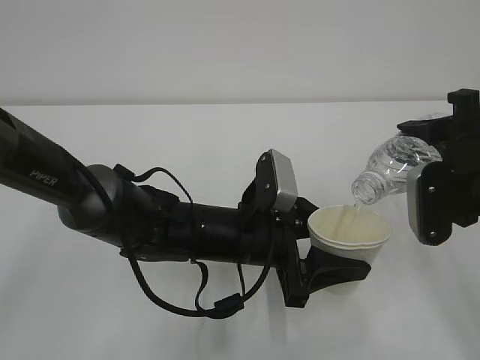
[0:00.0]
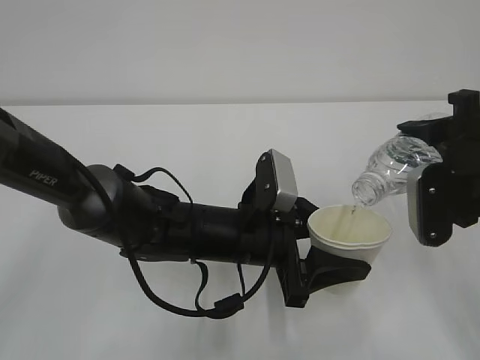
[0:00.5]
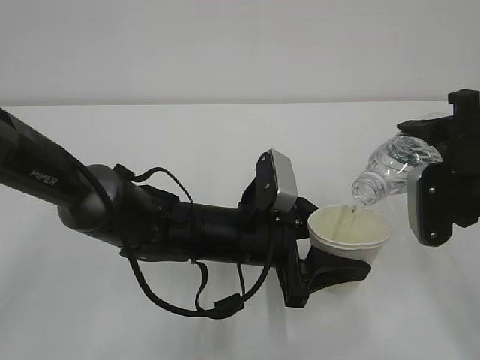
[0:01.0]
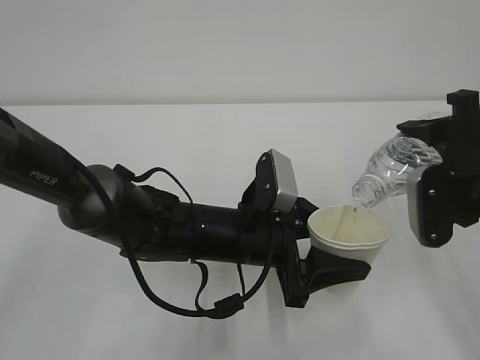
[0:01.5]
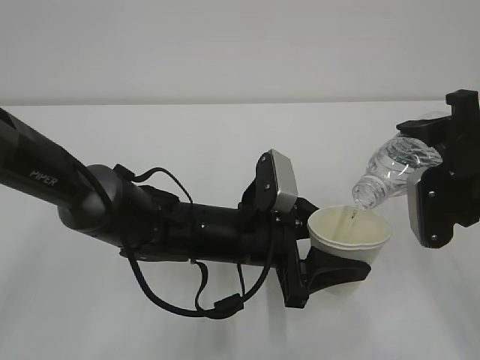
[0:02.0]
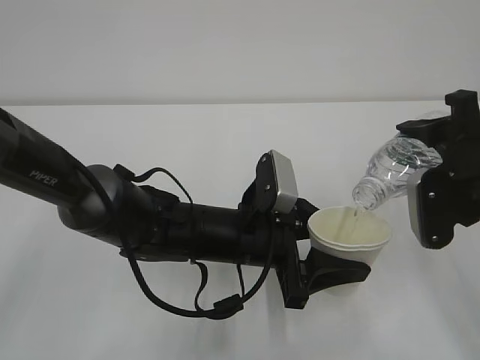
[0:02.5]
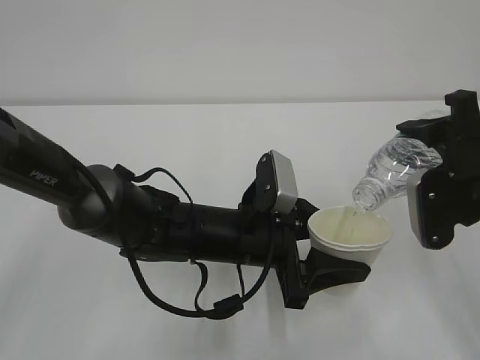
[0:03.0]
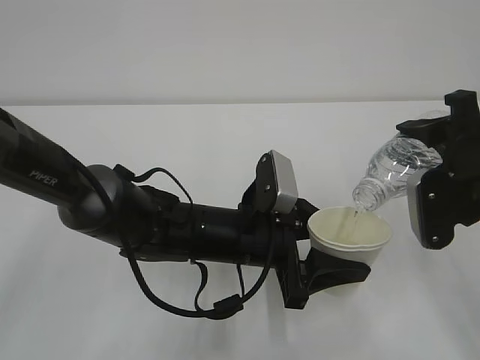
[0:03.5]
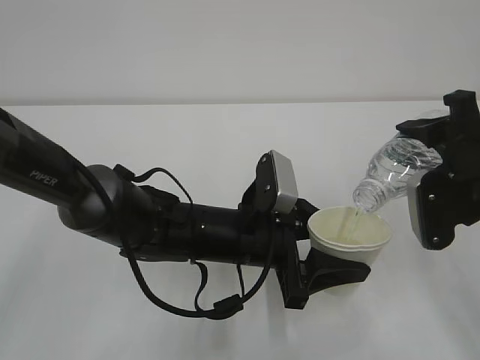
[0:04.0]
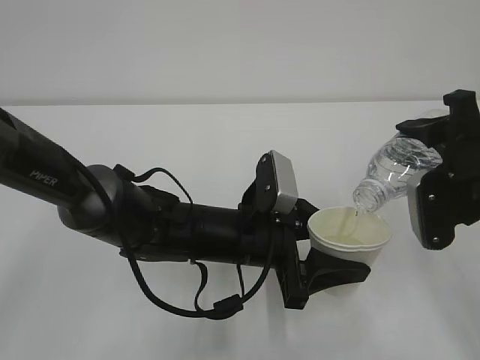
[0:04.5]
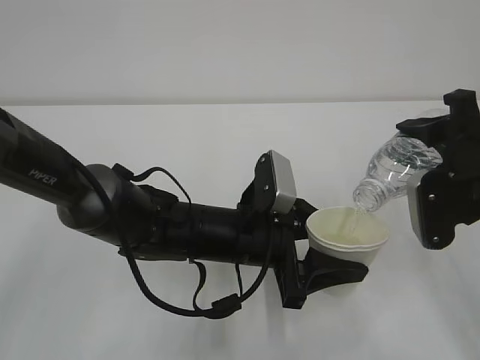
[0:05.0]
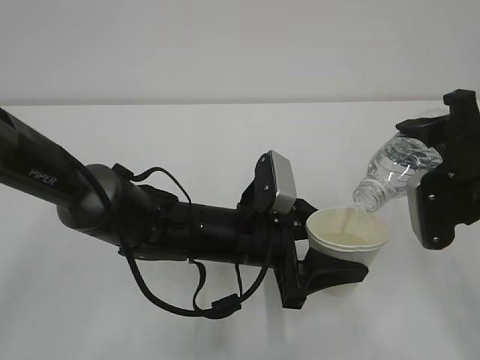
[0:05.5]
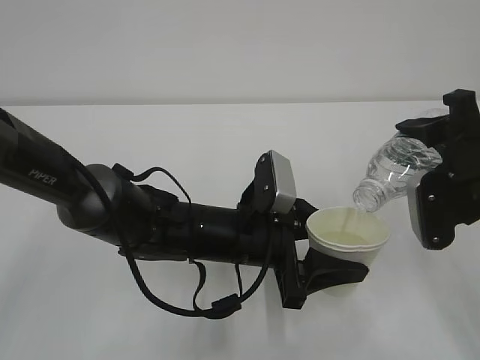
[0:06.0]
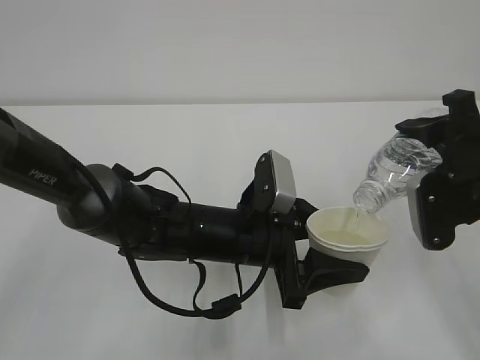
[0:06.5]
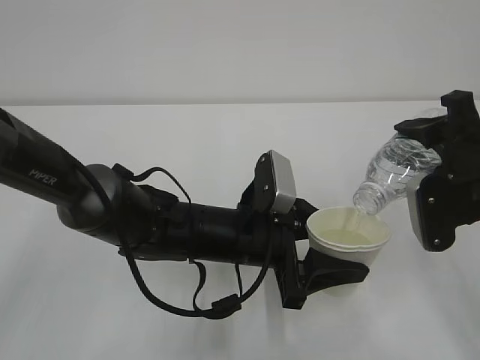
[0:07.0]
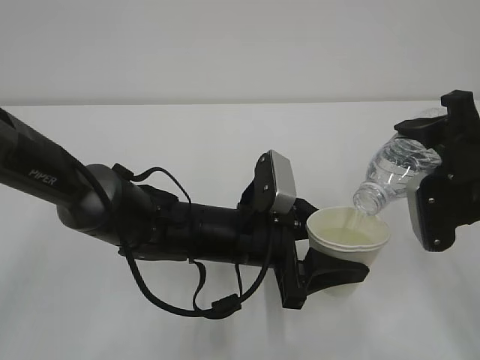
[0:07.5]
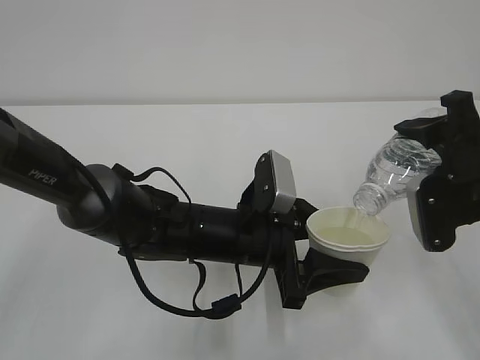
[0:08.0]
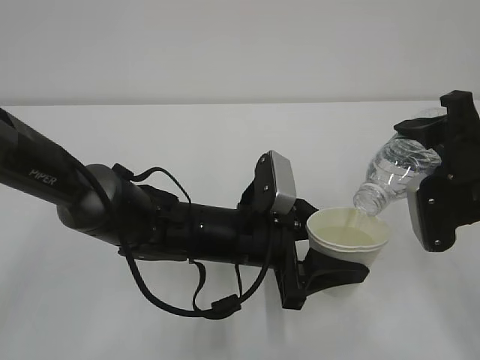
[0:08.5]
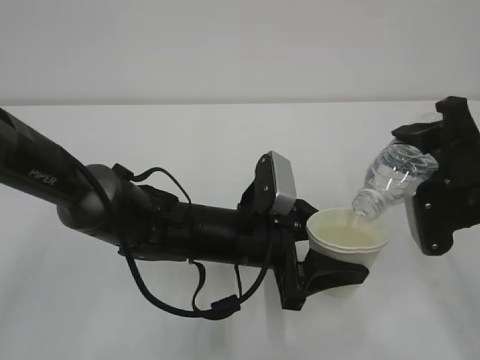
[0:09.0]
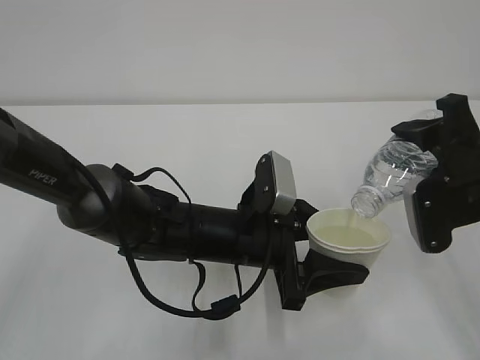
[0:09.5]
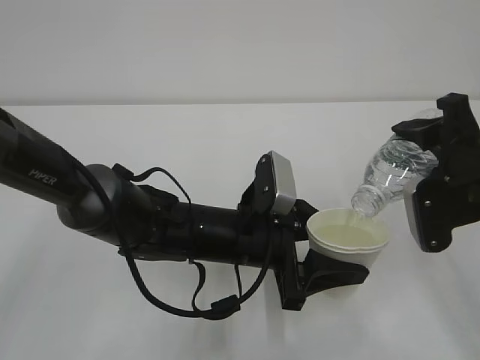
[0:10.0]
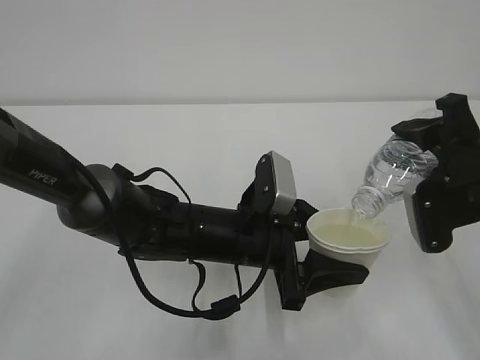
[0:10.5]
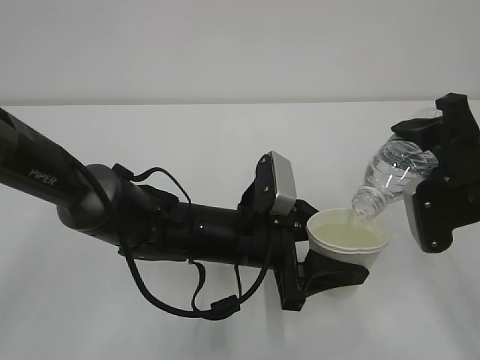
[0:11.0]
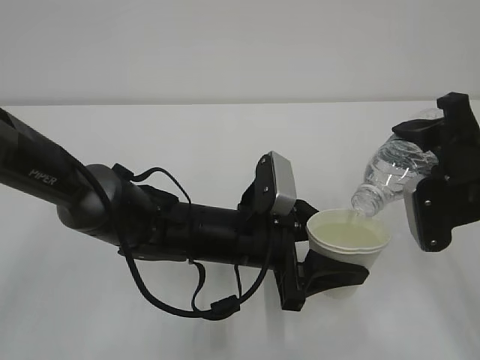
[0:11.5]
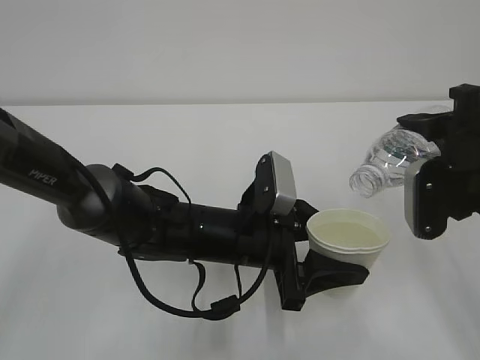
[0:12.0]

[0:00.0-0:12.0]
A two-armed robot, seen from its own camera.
0:00.0 to 0:04.0: Neither gripper changes place.
0:04.0 to 0:10.0: The two grippers keep their place.
0:10.0 to 0:12.0: The grippers stay close to where they were, moving slightly.

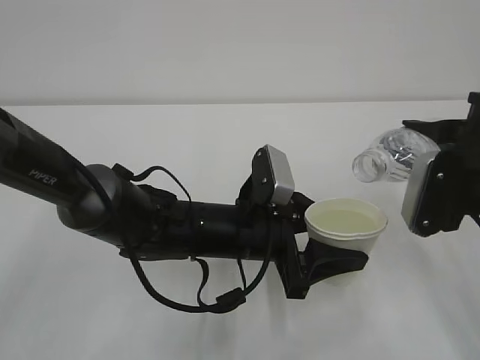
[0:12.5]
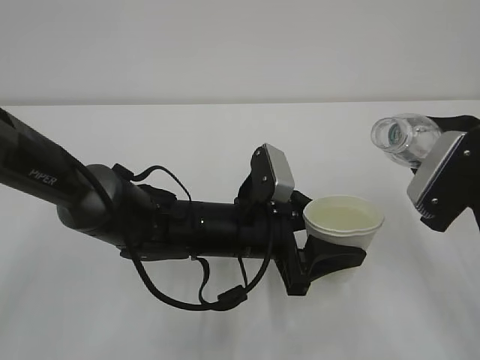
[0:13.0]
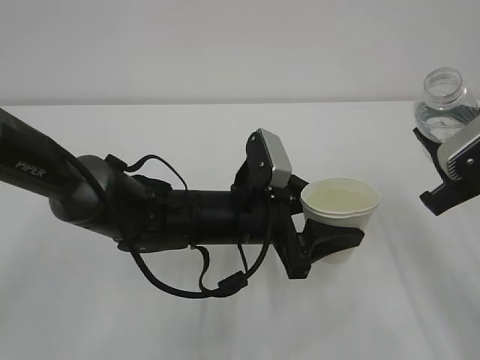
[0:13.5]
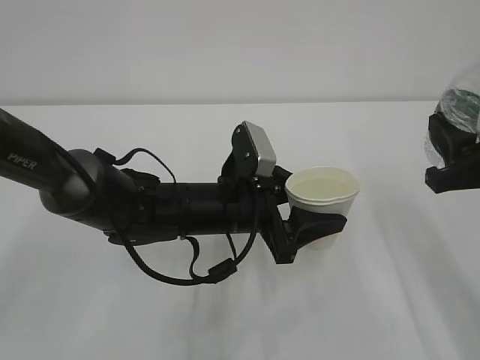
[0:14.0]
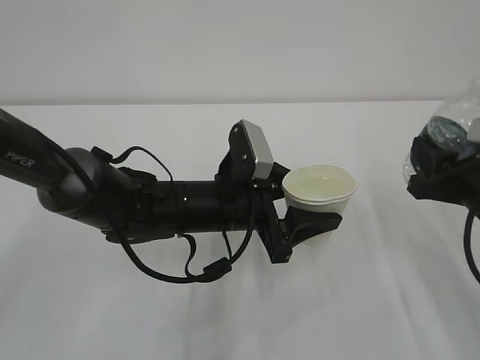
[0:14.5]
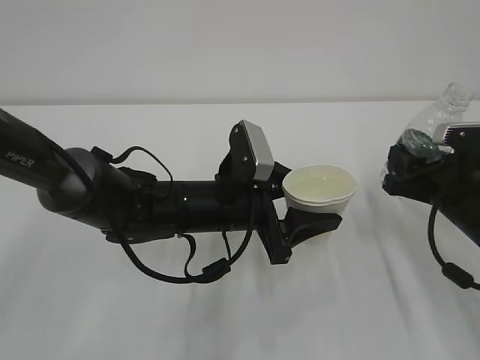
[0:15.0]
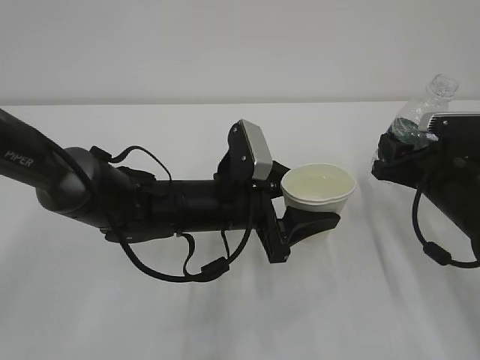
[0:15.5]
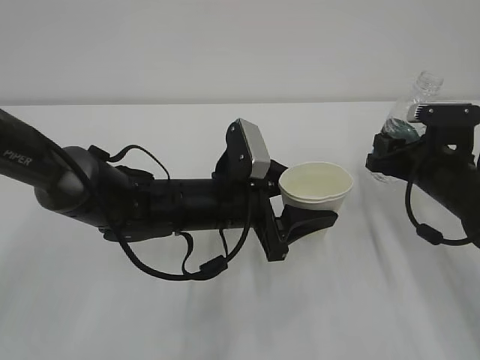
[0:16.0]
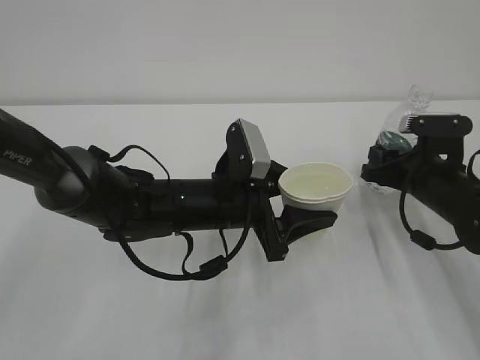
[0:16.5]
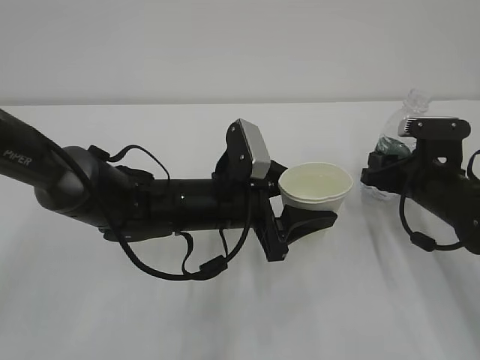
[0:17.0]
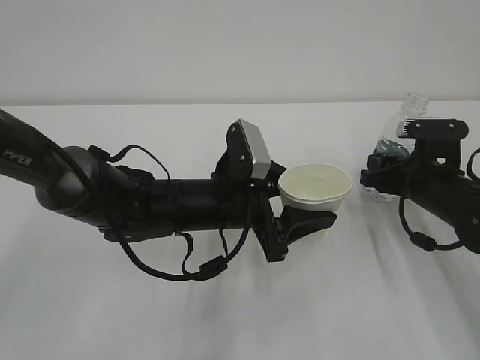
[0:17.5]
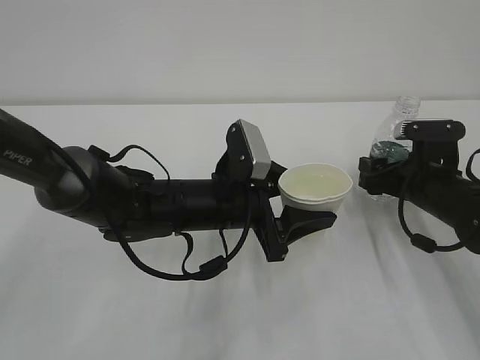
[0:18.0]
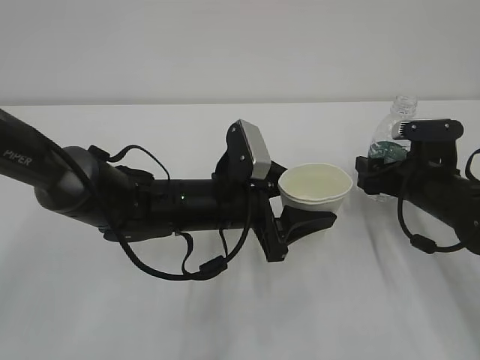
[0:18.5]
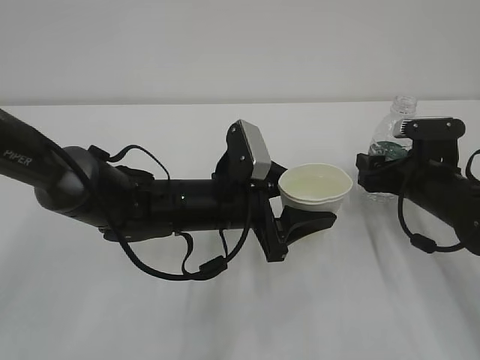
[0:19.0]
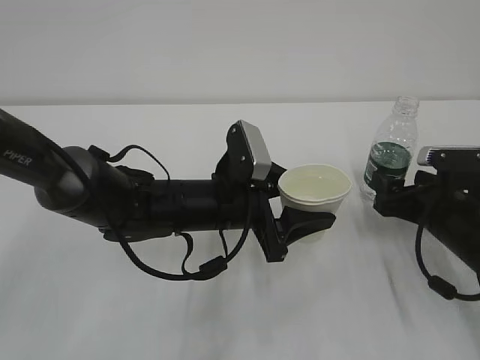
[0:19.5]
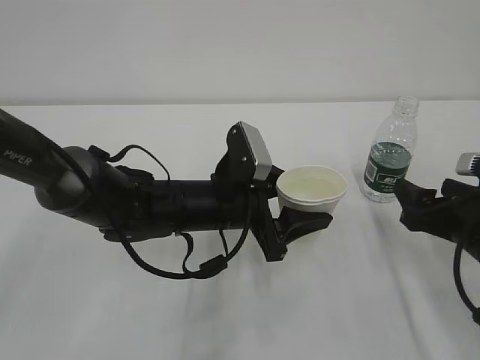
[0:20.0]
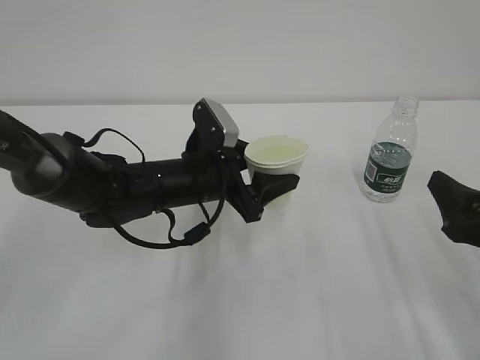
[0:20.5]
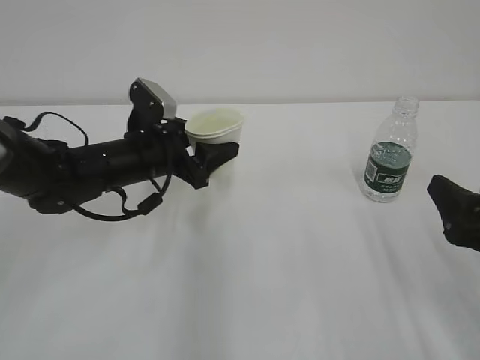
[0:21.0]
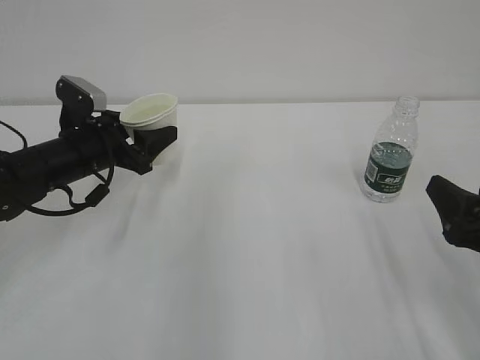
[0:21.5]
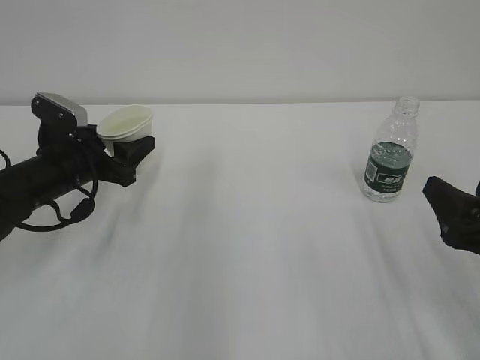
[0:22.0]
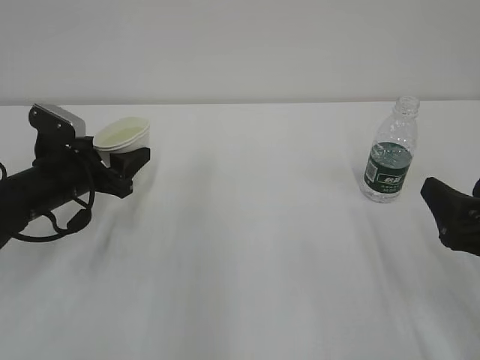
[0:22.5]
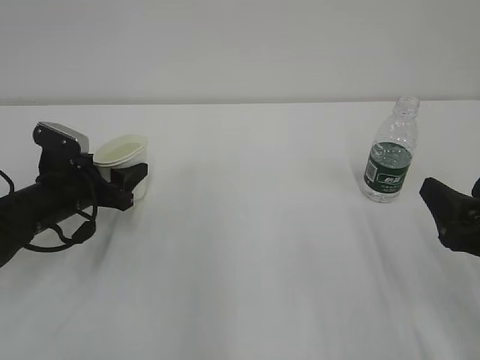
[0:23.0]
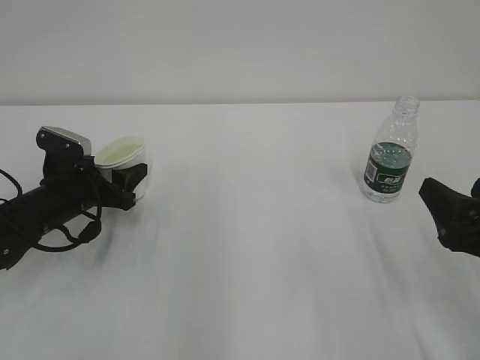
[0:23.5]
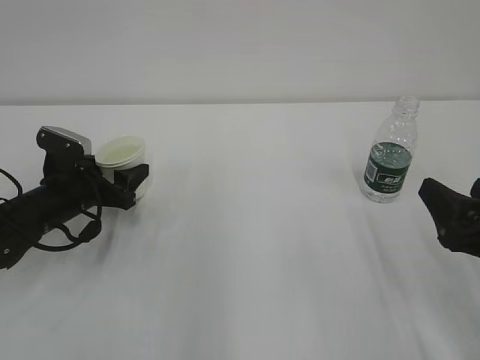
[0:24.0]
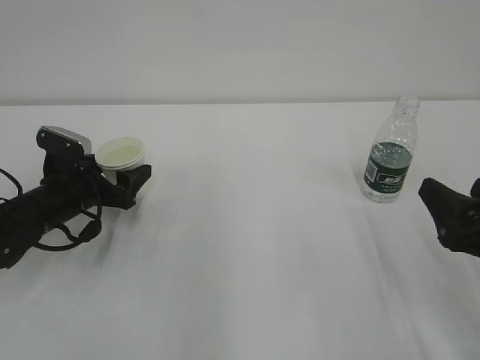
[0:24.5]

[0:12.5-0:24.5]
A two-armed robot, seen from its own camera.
0:14.5 to 0:16.5: The right gripper travels forward and downward by roughly 10 cm.
0:16.5 to 0:18.5: The right gripper opens its fingers.
0:18.5 to 0:20.5: The right gripper goes roughly 15 cm backward and upward.
0:20.5 to 0:22.5: The left gripper shifts approximately 20 cm to the left.
0:22.5 to 0:24.5: The left gripper opens.

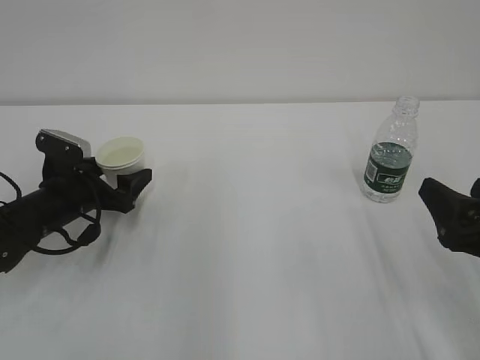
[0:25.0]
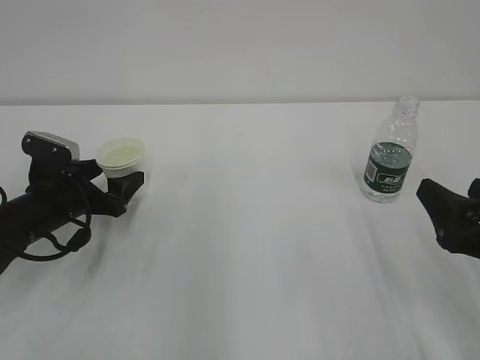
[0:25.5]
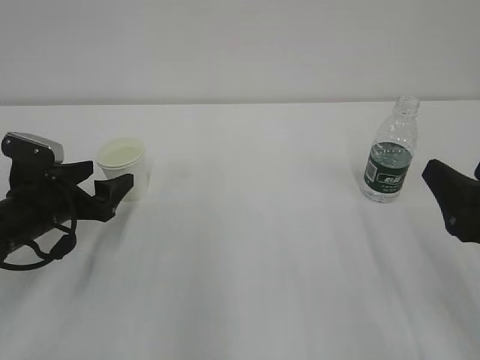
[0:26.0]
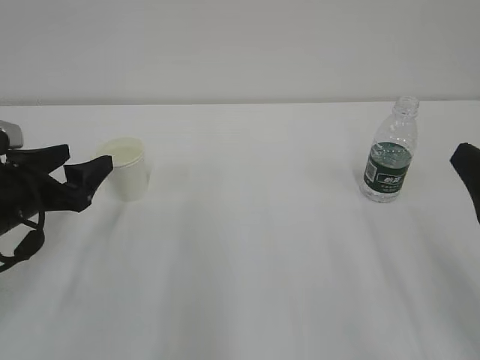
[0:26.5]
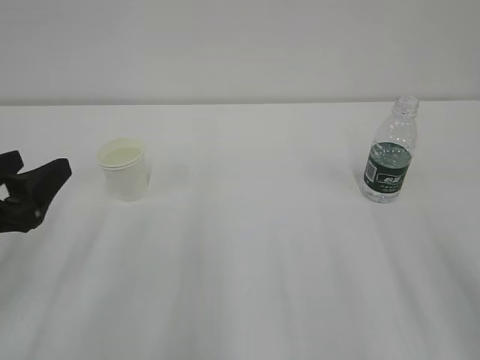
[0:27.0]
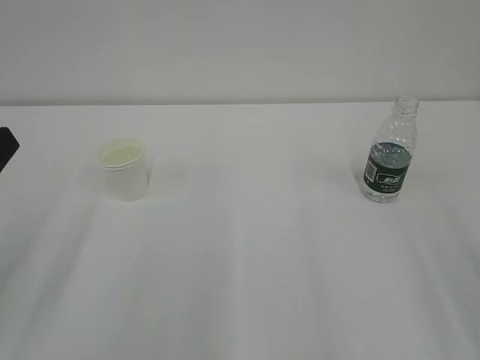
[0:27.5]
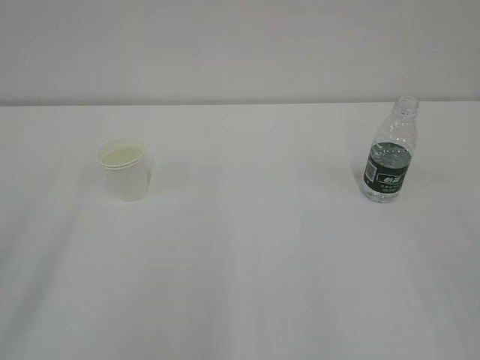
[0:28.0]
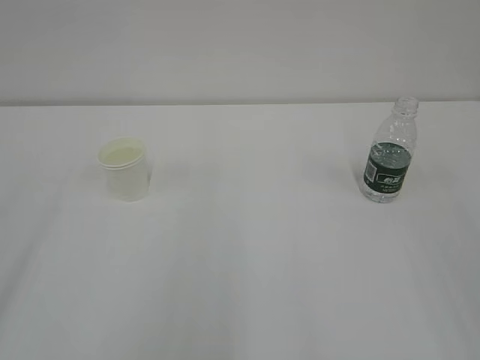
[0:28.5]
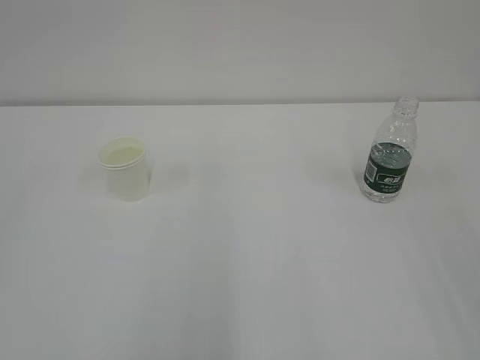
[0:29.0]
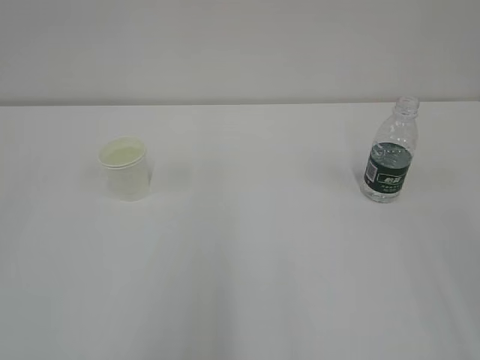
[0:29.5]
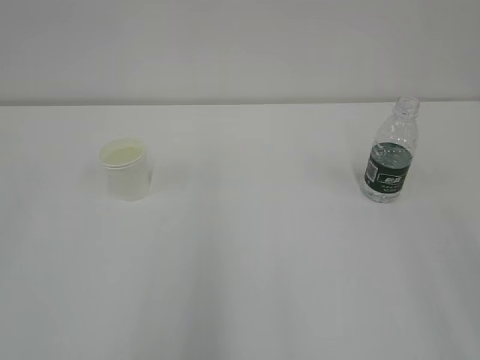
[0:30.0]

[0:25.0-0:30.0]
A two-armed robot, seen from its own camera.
0:25.0 to 0:27.5: The left gripper moves backward and upward, some 25 cm. Meanwhile the right gripper is displaced upward and backward by roughly 20 cm.
